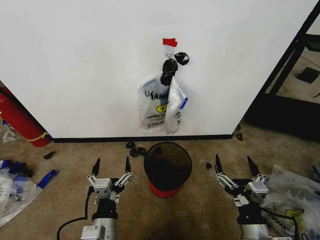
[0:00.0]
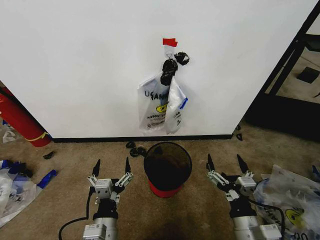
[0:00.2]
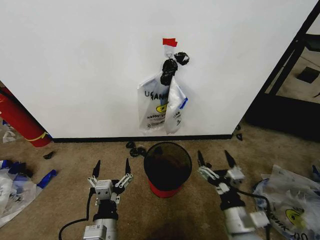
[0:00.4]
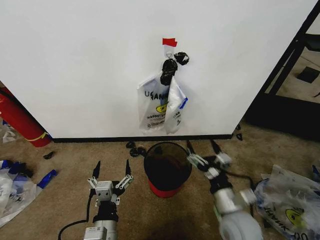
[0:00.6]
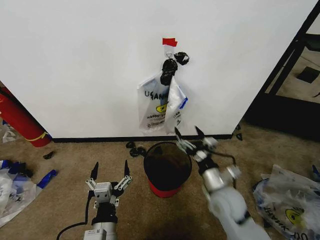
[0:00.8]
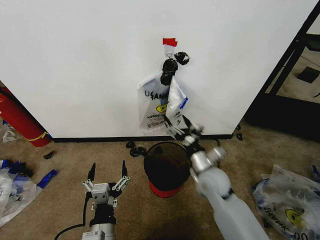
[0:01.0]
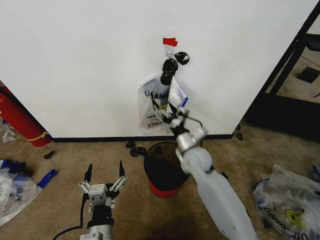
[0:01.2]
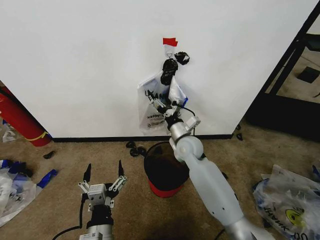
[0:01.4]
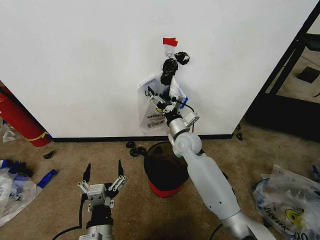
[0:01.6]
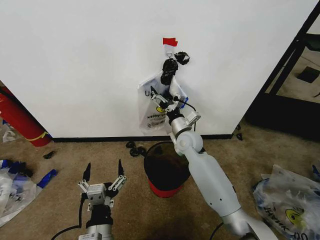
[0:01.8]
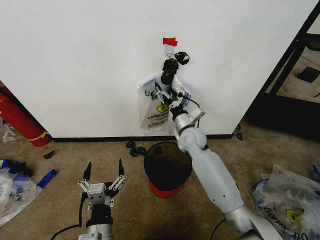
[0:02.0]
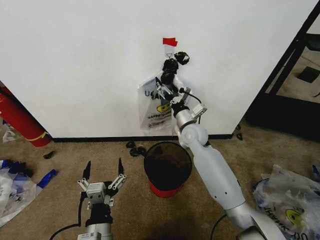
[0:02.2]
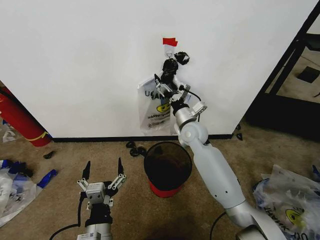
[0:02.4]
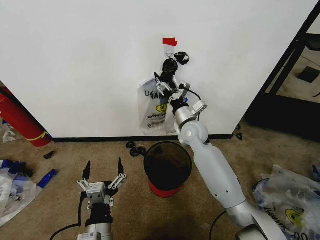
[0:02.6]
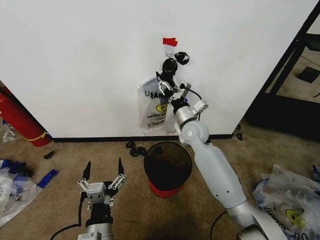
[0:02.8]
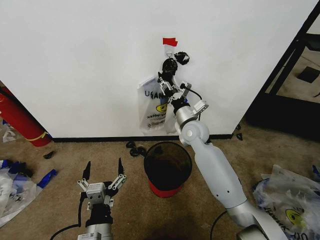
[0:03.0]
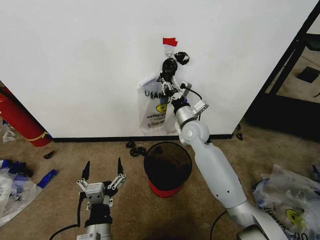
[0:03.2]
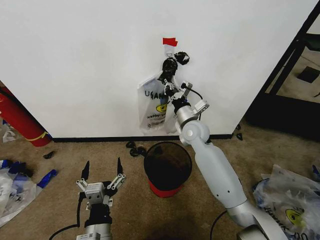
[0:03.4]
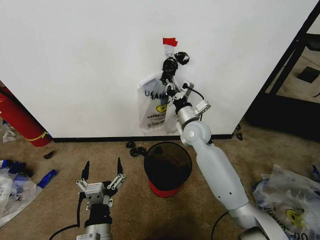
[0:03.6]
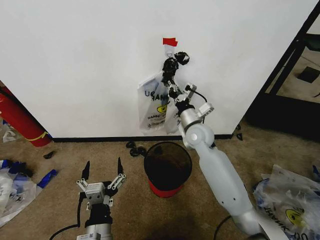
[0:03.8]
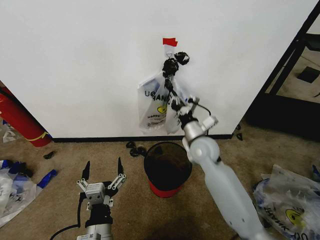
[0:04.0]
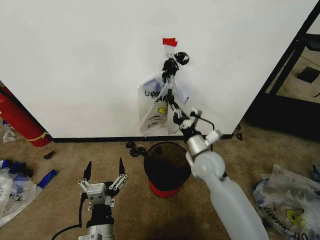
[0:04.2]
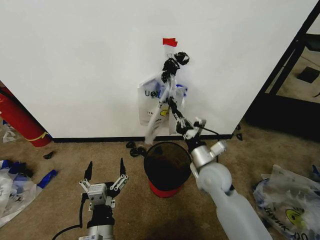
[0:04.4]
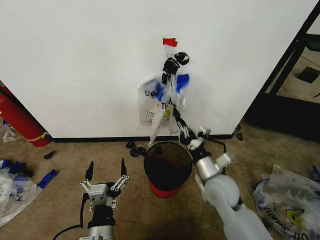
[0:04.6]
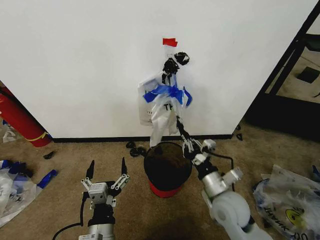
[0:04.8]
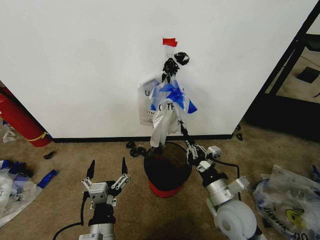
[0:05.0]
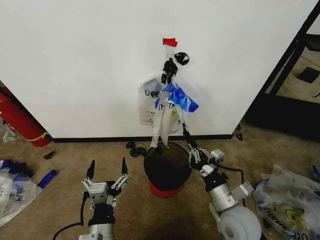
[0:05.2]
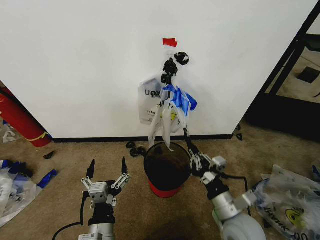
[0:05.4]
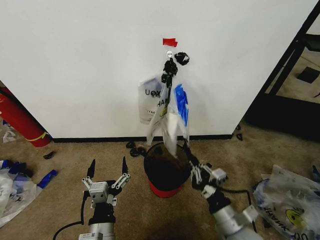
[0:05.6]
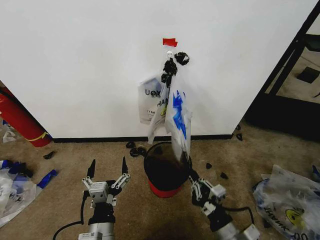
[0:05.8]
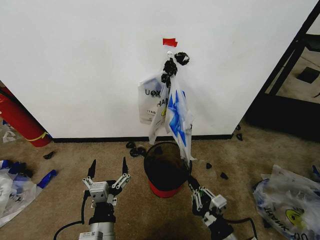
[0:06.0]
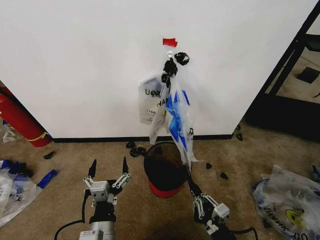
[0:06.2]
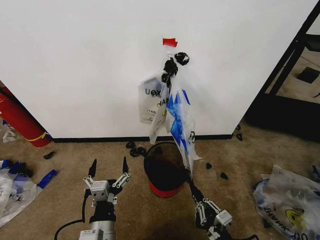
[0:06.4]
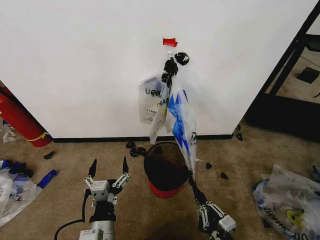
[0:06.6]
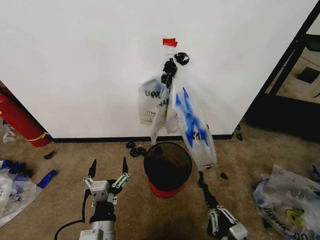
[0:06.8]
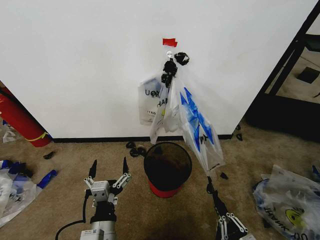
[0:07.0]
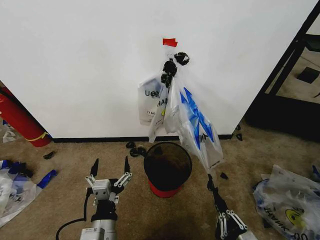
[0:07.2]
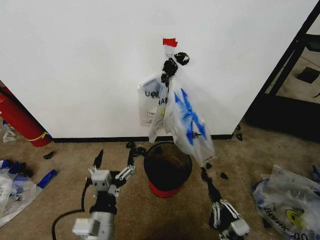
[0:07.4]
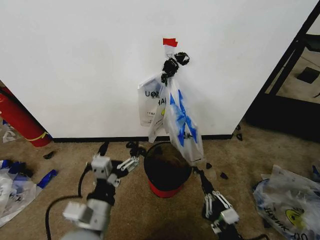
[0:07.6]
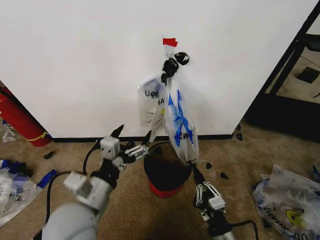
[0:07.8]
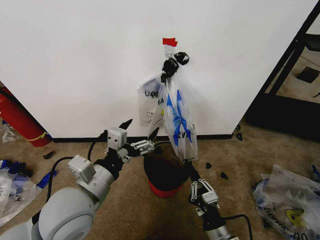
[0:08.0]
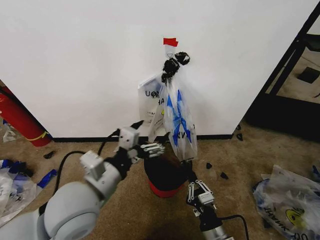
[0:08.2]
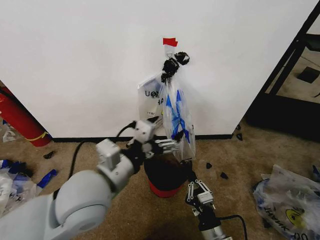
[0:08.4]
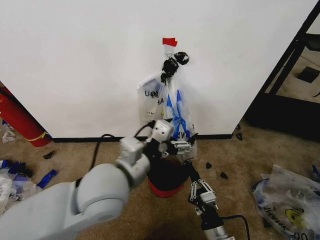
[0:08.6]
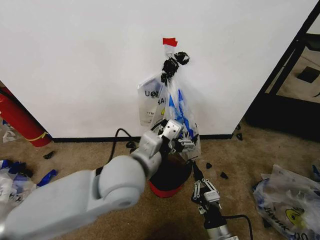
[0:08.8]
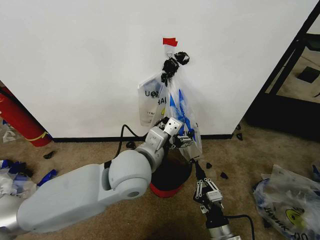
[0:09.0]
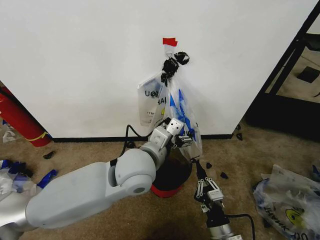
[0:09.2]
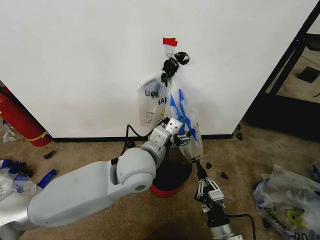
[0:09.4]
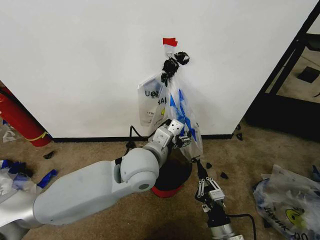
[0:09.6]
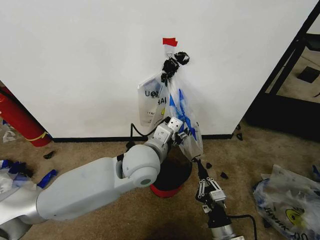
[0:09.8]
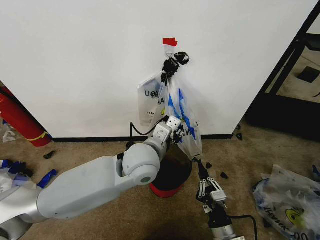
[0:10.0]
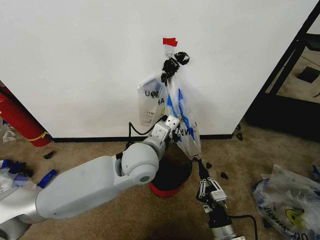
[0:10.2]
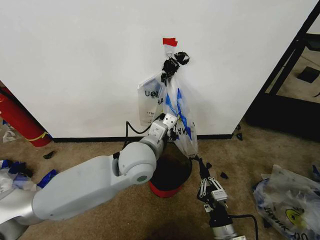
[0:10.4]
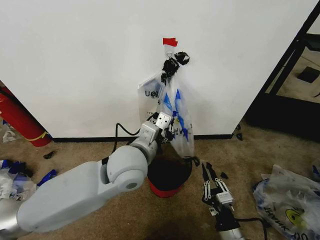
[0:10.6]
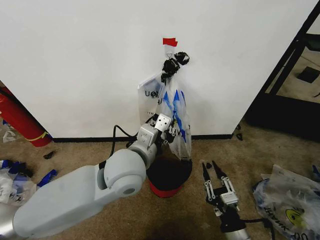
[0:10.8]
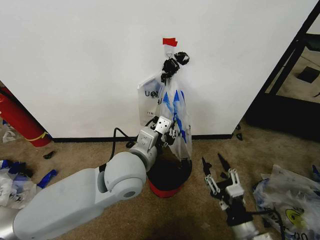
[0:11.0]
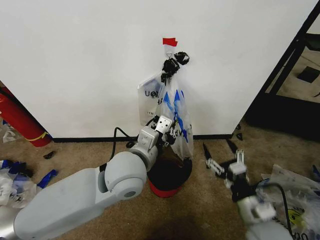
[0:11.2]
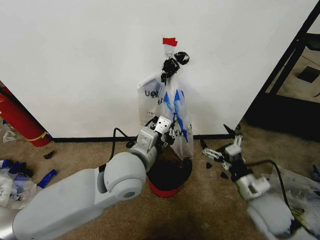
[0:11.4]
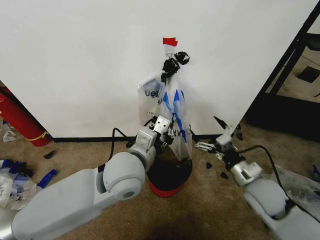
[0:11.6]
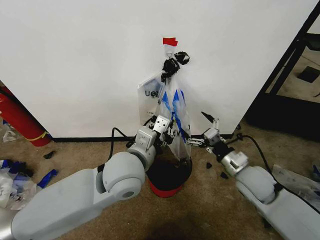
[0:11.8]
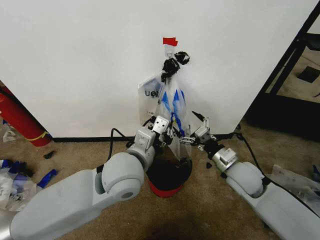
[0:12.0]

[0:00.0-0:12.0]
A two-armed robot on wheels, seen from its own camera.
Task of the whole recording: Pick up the garbage bag from the wall and place it over the trash bin.
0:01.6 to 0:03.0: The right gripper shifts by approximately 5 cm, and closes.
0:03.0 to 0:04.4: The right gripper travels backward by about 15 cm, and closes up.
0:04.4 to 0:06.0: The right gripper shifts approximately 20 cm backward.
0:06.0 to 0:07.6: The left gripper goes approximately 10 cm upward, while the right gripper travels backward and back again, some 10 cm each way.
0:07.6 to 0:09.0: The right gripper changes place by some 5 cm. The left gripper shifts roughly 20 cm forward, to the right and upward.
0:09.0 to 0:10.4: The left gripper closes.
0:10.4 to 0:12.0: The right gripper heads forward and upward, covering approximately 25 cm, and opens up.

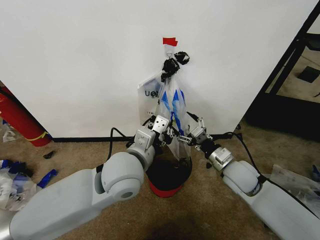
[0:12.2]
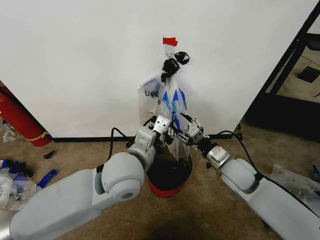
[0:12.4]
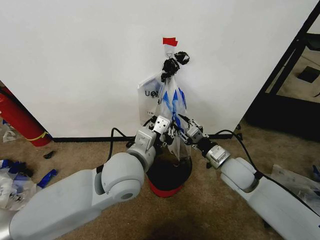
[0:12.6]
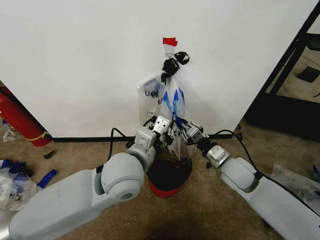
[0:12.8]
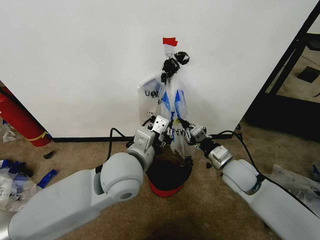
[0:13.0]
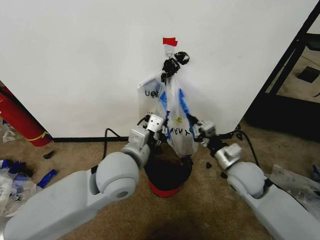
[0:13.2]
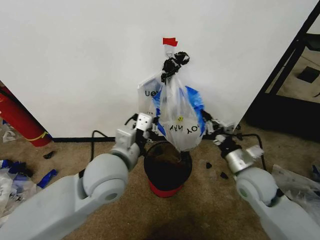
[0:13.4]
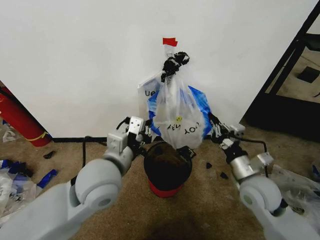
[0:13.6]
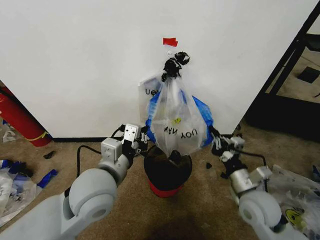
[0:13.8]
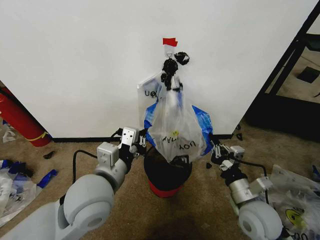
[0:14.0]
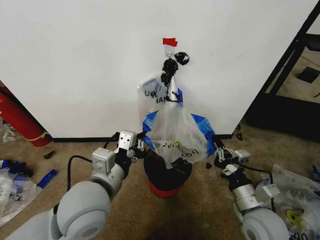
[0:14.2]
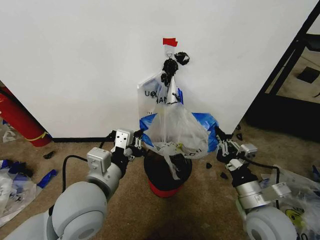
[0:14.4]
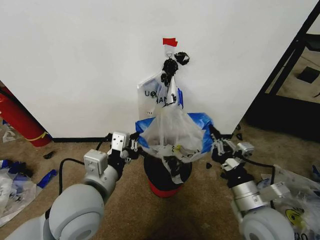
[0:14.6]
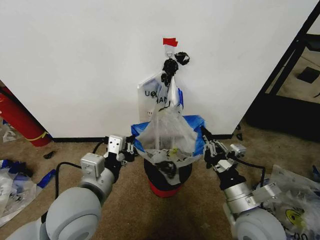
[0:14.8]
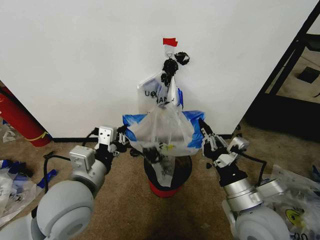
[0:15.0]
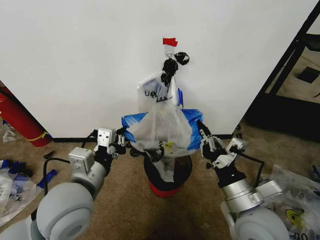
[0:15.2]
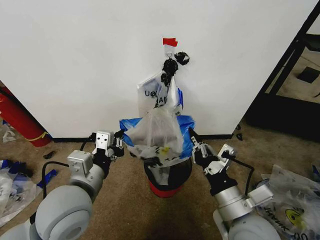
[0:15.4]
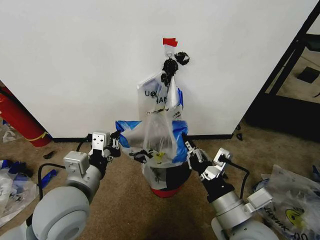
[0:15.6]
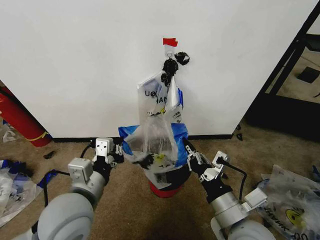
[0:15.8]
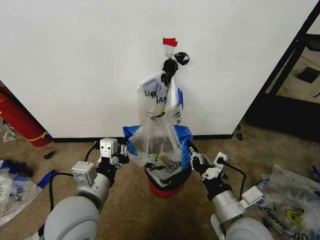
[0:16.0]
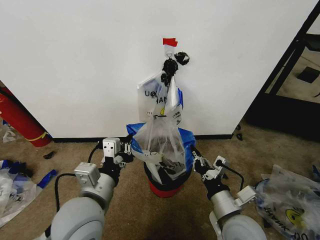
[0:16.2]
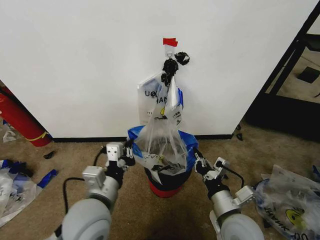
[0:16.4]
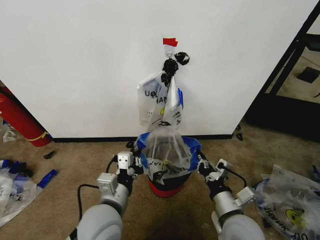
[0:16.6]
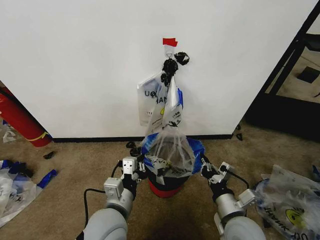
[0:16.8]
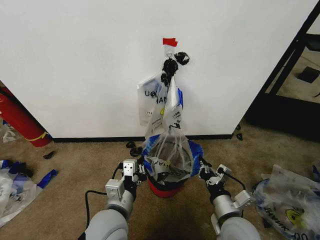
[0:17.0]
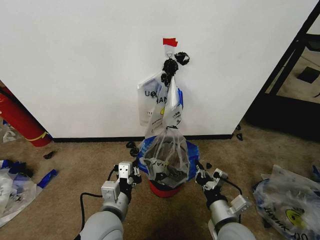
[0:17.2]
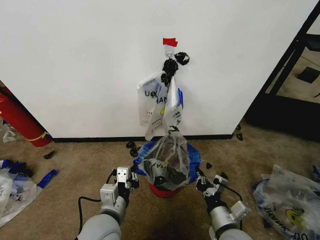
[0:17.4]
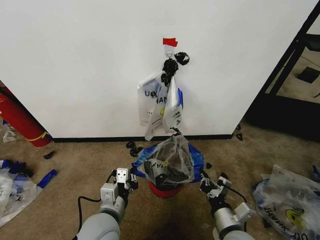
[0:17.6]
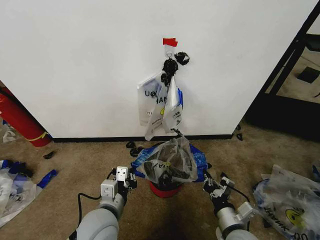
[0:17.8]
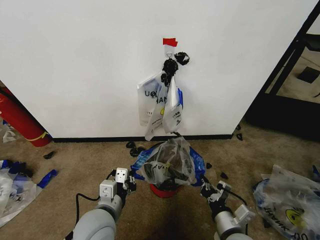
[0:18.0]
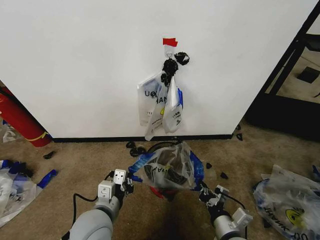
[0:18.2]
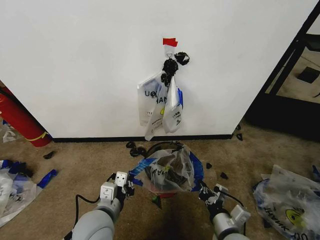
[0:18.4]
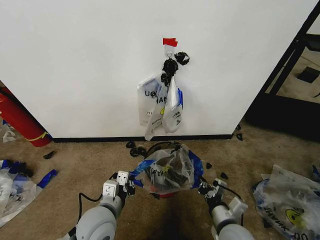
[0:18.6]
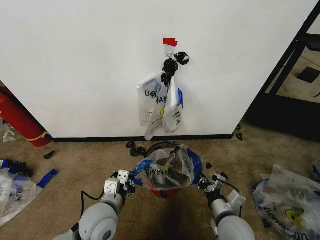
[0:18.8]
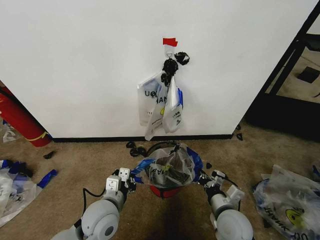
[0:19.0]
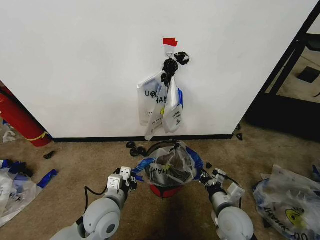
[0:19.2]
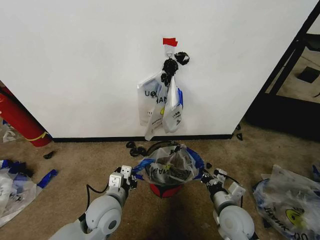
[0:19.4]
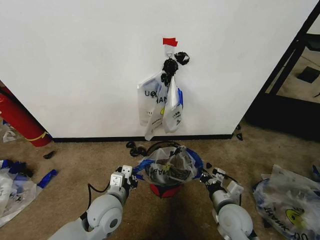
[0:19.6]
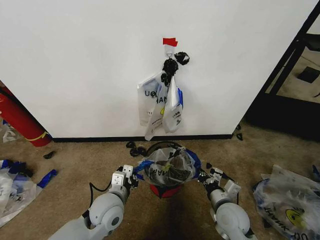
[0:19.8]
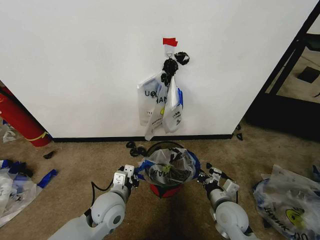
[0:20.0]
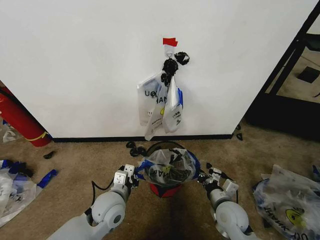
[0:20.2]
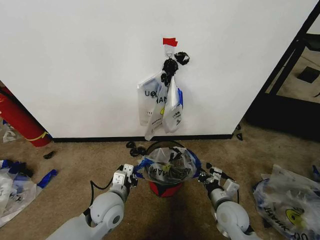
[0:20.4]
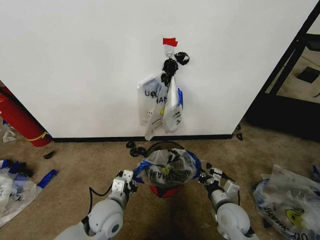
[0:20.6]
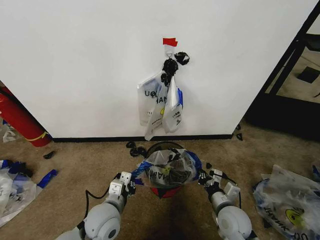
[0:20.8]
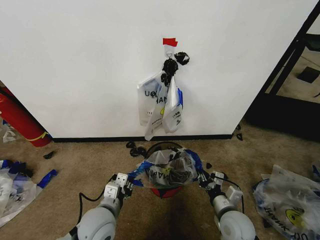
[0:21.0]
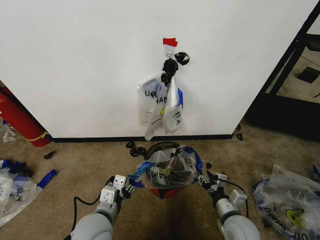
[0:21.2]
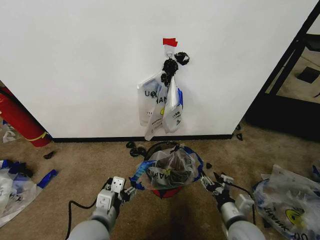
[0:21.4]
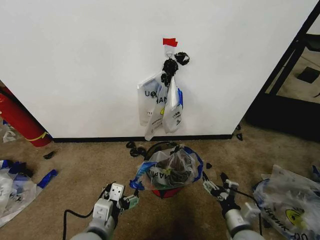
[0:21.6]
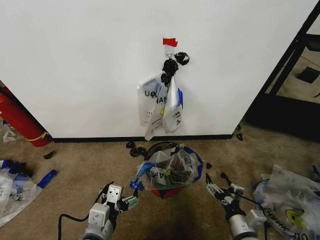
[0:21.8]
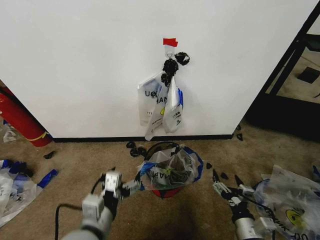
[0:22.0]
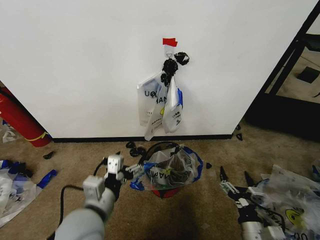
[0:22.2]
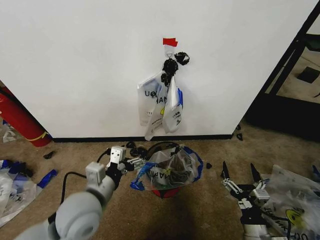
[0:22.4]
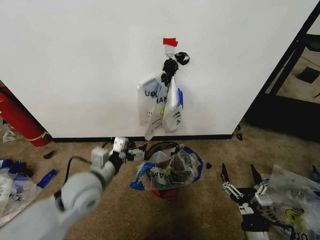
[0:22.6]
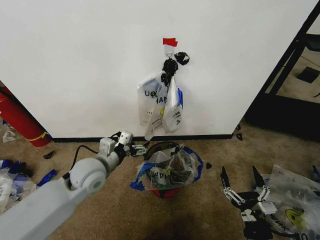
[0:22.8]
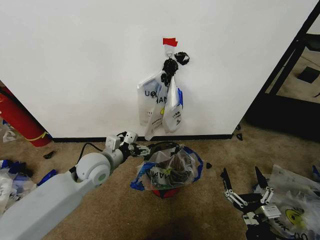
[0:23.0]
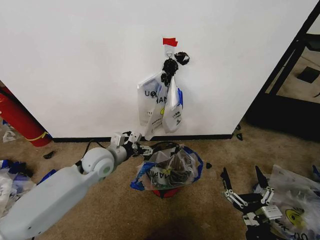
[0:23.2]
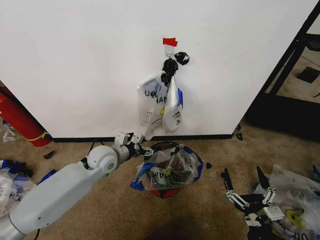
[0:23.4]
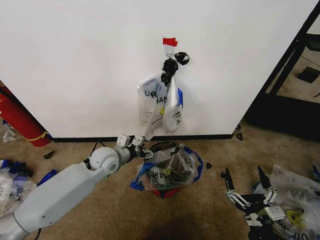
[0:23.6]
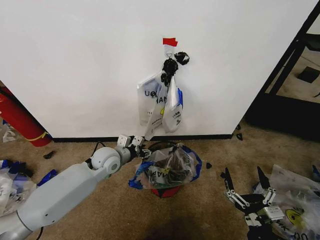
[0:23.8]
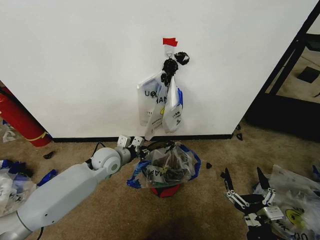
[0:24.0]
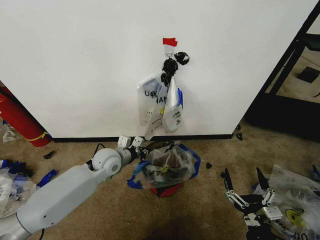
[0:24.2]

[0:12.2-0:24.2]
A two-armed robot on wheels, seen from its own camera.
Task of the whole recording: Pick up the garbage bag from the wall and place it over the trash bin.
0:12.2 to 0:13.8: The left gripper moves to the left, roughly 5 cm, while the right gripper is displaced backward by some 10 cm, and closes its fingers.
0:13.8 to 0:15.2: The right gripper is displaced upward, backward and to the left by approximately 10 cm. Meanwhile the left gripper changes place by some 5 cm.
0:15.2 to 0:16.6: Both grippers travel together downward, roughly 10 cm.
0:16.6 to 0:18.2: The right gripper heads downward, covering about 5 cm.
0:18.2 to 0:19.8: The left gripper travels forward by about 5 cm; the right gripper shifts about 10 cm forward.
0:19.8 to 0:21.2: The right gripper opens up, while the left gripper shifts approximately 5 cm backward, and opens up.
0:21.2 to 0:22.6: The right gripper is displaced backward by about 10 cm, and opens up, while the left gripper shifts roughly 10 cm forward and upward, and opens its fingers.
0:22.6 to 0:24.2: The left gripper shifts roughly 15 cm forward and downward, and closes up.
